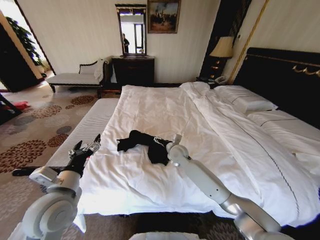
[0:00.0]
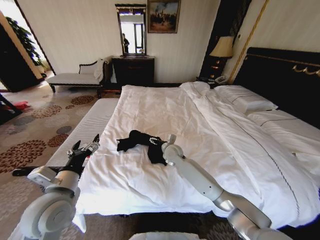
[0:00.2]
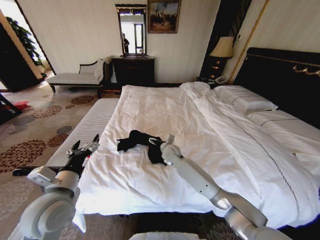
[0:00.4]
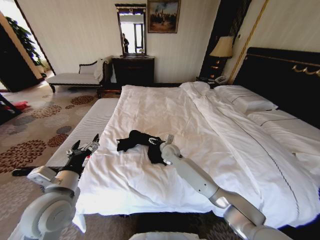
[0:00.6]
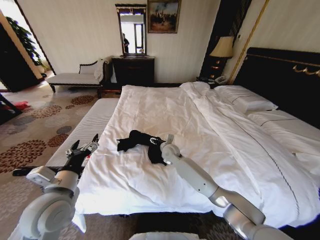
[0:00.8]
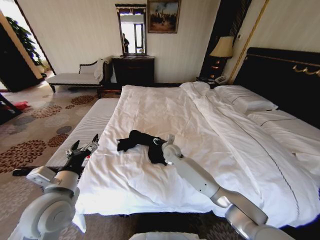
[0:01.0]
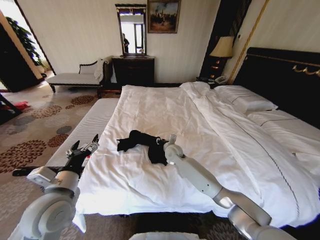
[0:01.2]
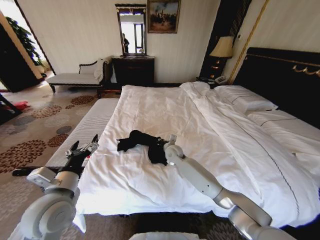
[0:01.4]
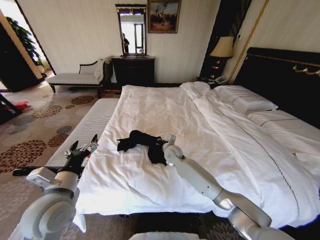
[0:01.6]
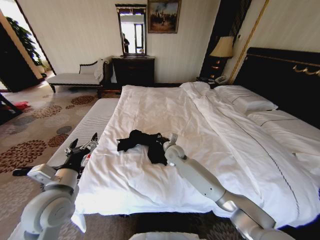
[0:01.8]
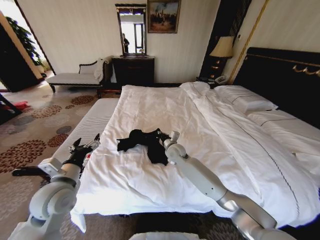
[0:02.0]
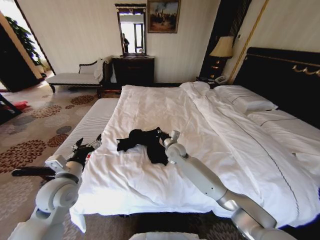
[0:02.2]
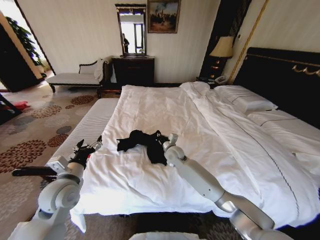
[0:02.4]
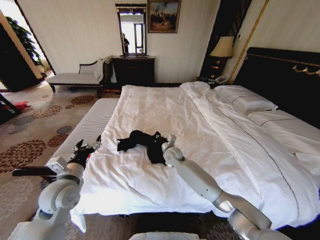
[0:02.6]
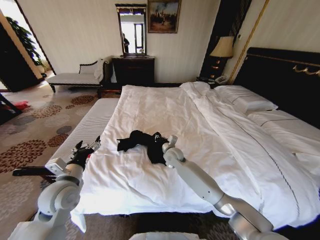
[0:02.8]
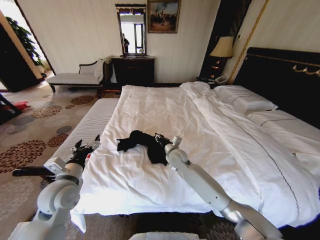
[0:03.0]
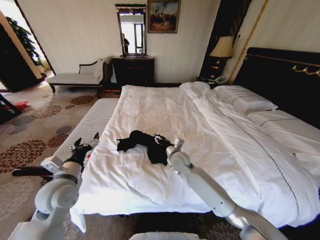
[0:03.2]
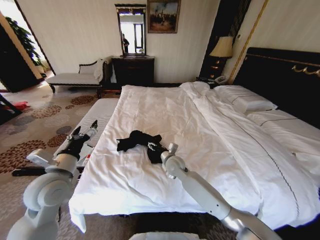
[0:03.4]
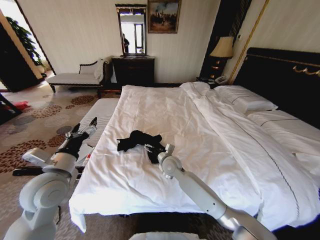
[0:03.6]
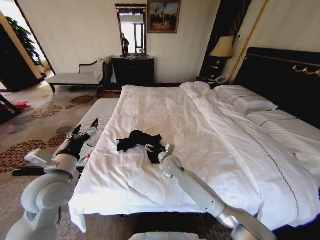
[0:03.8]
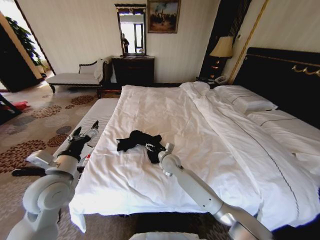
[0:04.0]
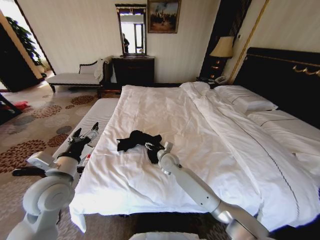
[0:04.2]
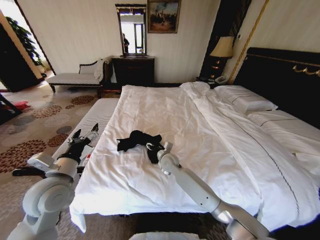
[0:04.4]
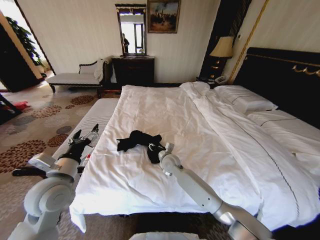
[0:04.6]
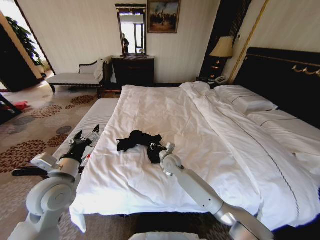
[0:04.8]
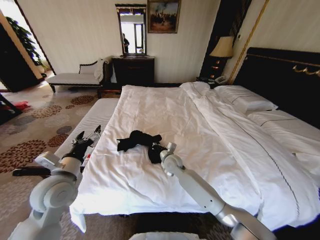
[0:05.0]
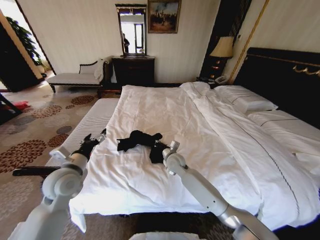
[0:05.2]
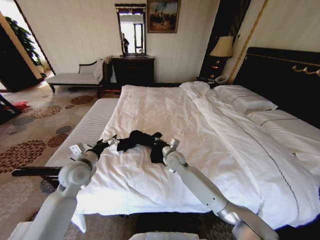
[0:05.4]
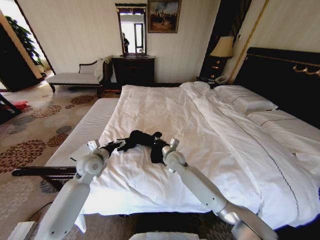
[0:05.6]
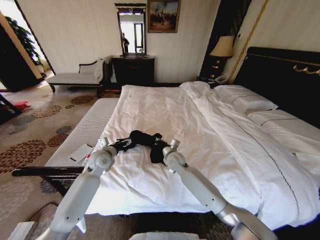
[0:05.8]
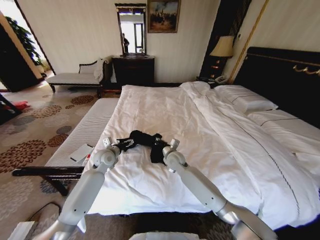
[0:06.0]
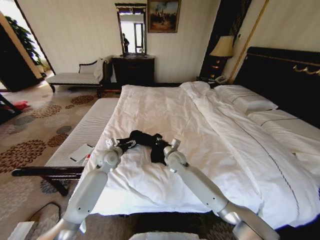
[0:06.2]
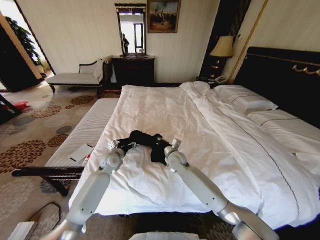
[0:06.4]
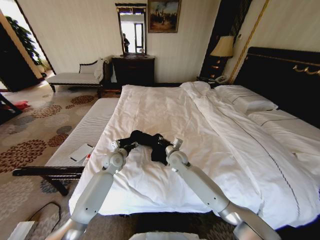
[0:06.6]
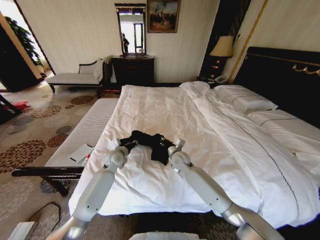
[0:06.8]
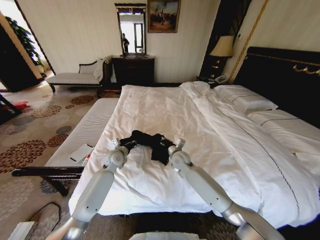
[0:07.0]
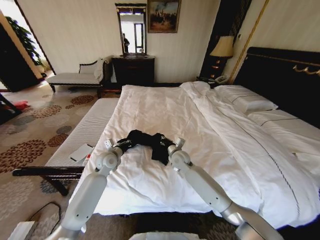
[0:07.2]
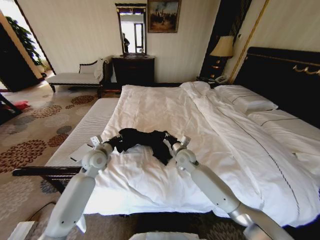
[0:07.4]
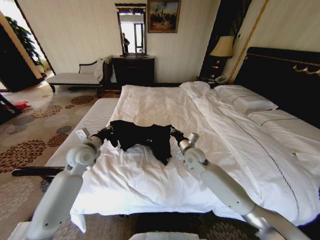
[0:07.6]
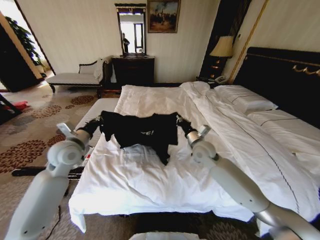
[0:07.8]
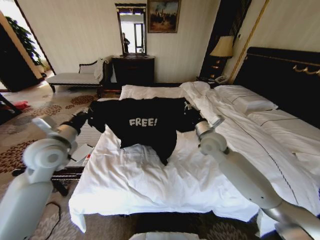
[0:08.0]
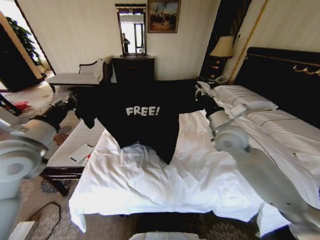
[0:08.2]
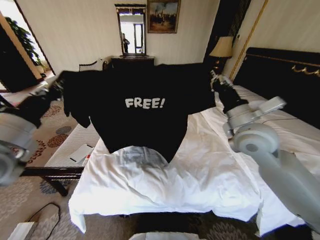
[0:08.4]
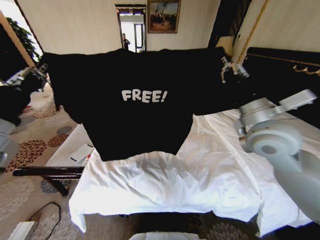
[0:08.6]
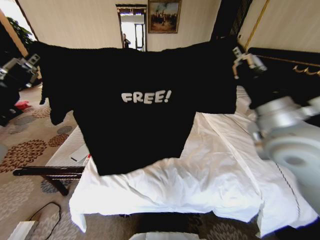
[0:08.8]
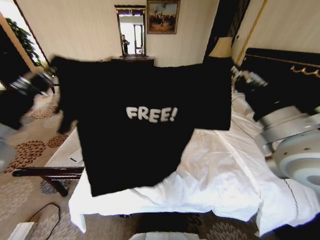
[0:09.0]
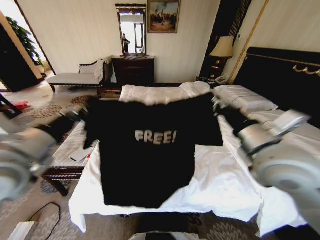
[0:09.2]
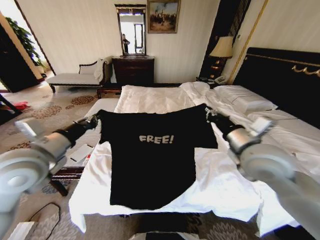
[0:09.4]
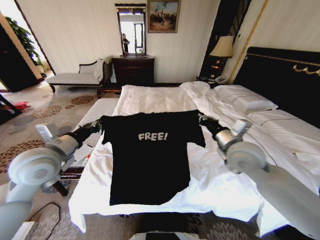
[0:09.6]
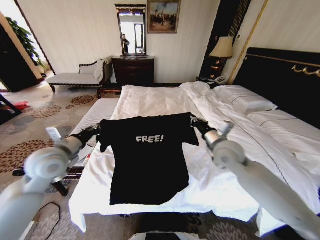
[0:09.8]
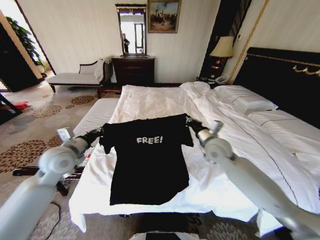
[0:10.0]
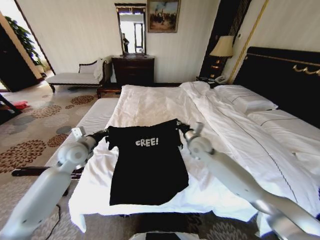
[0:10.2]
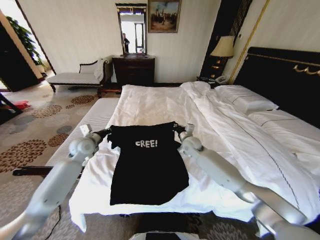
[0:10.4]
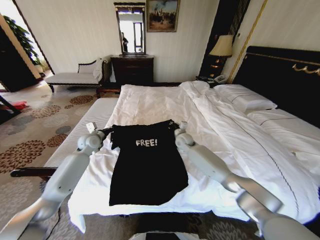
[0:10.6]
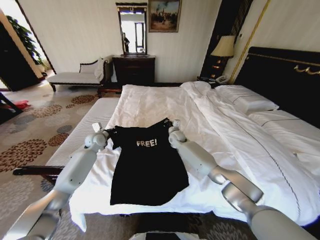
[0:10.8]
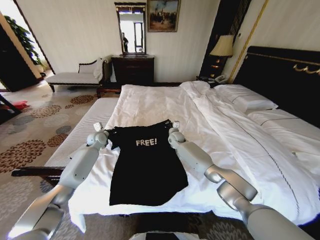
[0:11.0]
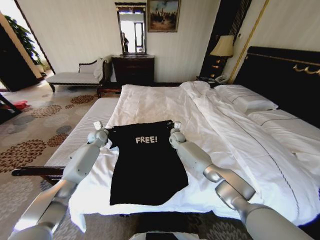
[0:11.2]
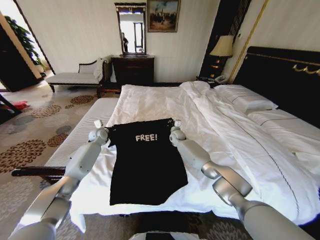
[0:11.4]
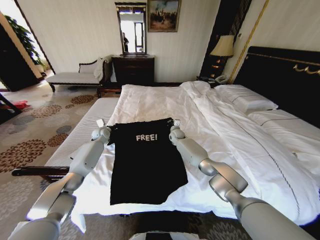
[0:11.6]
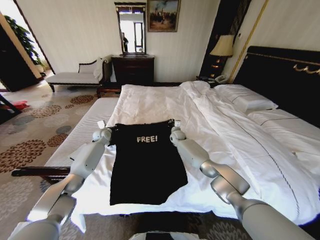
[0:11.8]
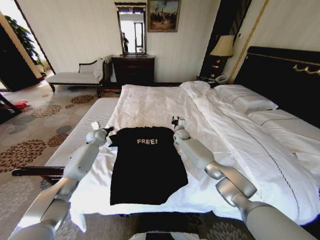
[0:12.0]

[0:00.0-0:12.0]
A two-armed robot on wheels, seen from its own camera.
Task of the whole recording: Fold the clothes on the bed.
0:00.0 to 0:01.6: The right gripper closes its fingers.
0:01.6 to 0:03.0: The left gripper heads forward, covering roughly 5 cm.
0:03.0 to 0:04.4: The right gripper opens up.
0:04.4 to 0:06.0: The right gripper closes its fingers. Meanwhile the left gripper travels forward and downward by some 25 cm.
0:06.0 to 0:07.6: The right gripper is displaced to the right by some 10 cm. Meanwhile the left gripper goes some 10 cm upward and to the left, and closes up.
0:07.6 to 0:09.0: The two grippers go roughly 30 cm upward and backward.
0:09.0 to 0:10.4: Both grippers move forward and downward, roughly 35 cm.
0:10.4 to 0:12.0: Both grippers move forward and downward, some 15 cm.

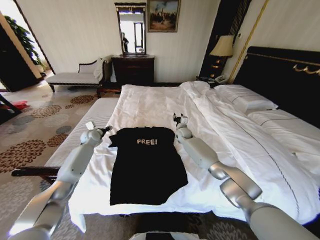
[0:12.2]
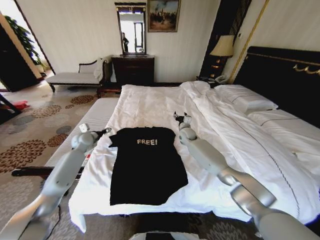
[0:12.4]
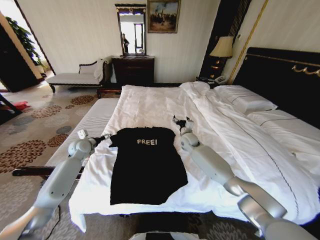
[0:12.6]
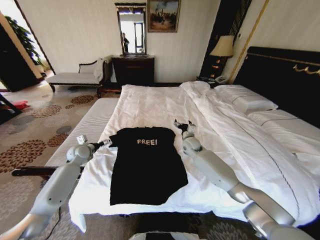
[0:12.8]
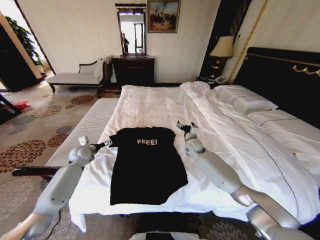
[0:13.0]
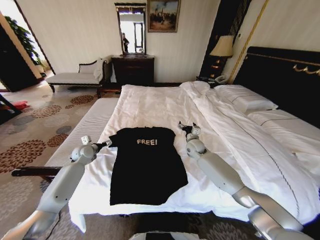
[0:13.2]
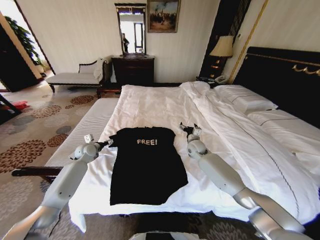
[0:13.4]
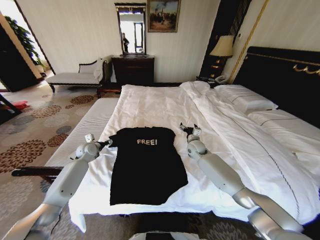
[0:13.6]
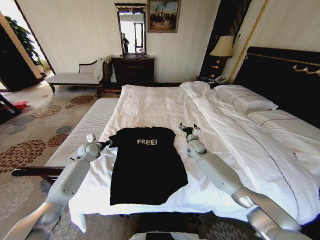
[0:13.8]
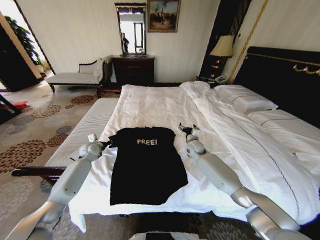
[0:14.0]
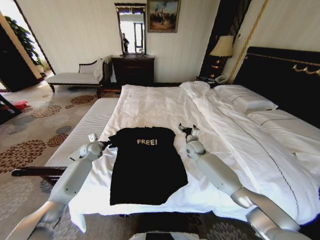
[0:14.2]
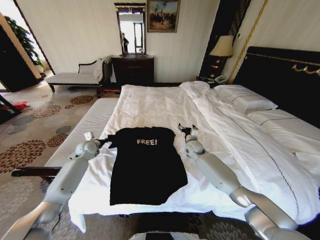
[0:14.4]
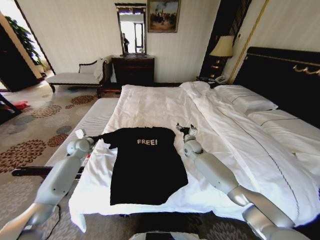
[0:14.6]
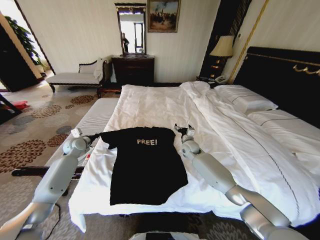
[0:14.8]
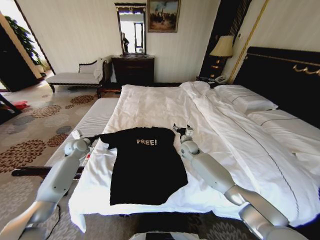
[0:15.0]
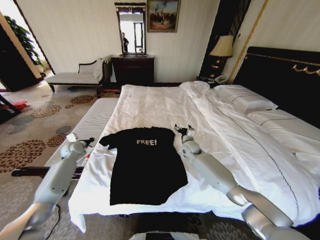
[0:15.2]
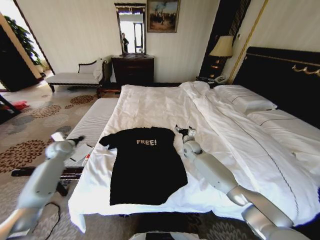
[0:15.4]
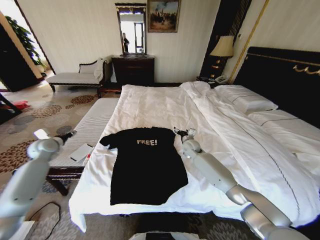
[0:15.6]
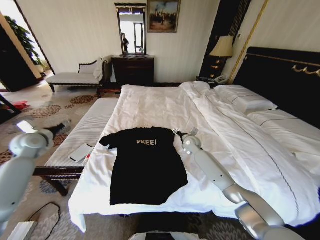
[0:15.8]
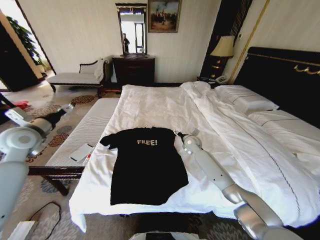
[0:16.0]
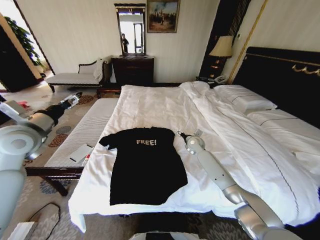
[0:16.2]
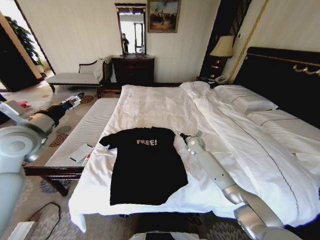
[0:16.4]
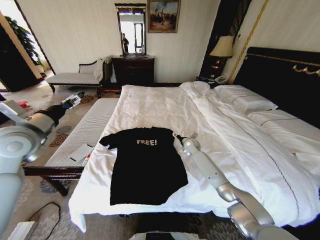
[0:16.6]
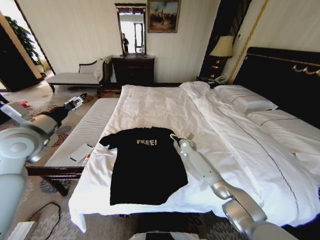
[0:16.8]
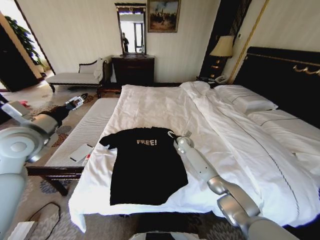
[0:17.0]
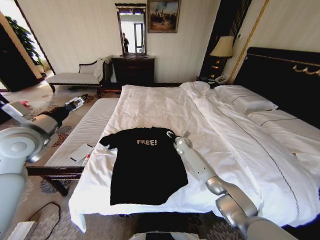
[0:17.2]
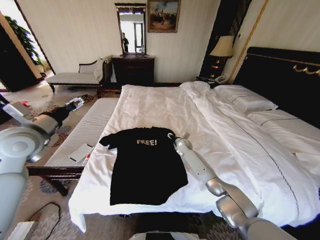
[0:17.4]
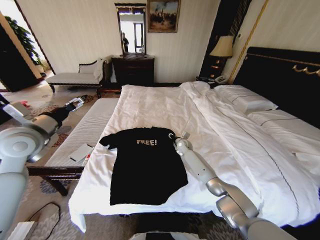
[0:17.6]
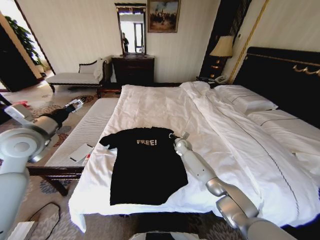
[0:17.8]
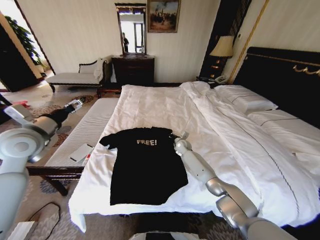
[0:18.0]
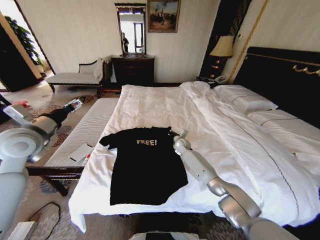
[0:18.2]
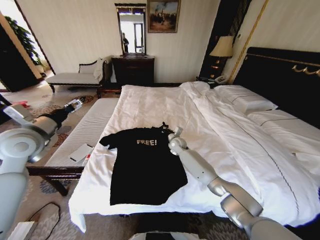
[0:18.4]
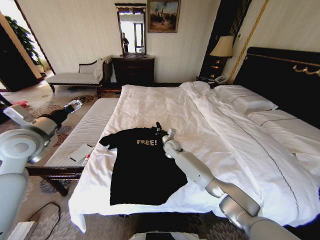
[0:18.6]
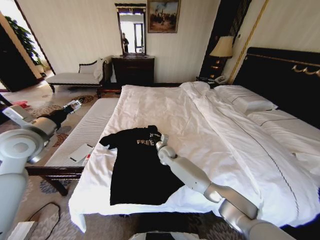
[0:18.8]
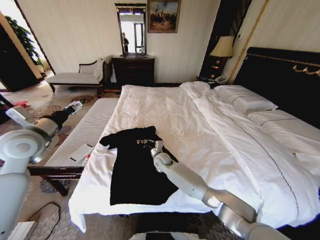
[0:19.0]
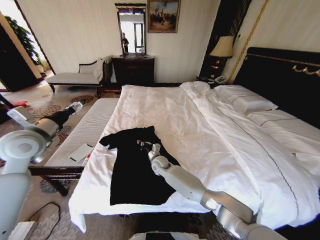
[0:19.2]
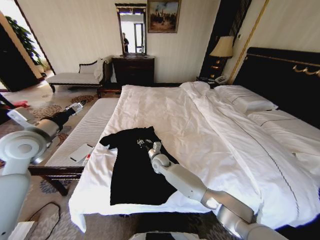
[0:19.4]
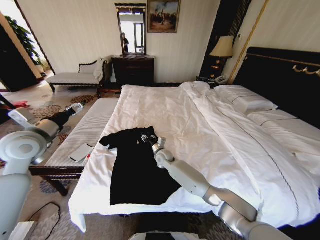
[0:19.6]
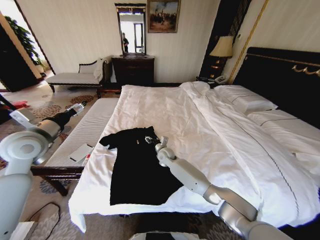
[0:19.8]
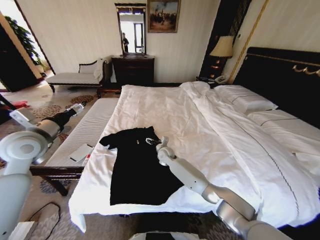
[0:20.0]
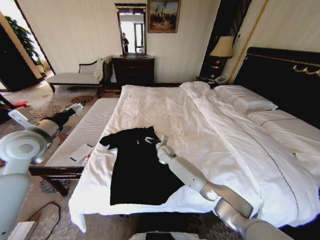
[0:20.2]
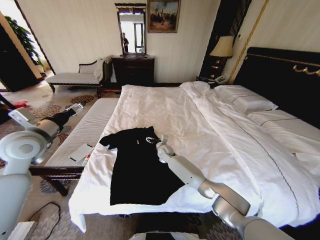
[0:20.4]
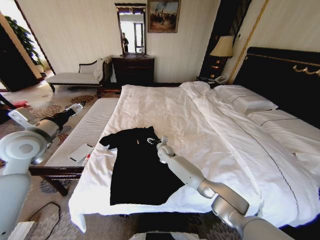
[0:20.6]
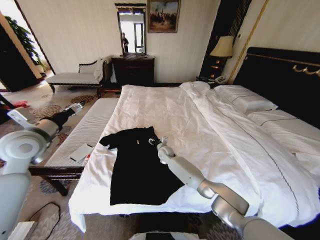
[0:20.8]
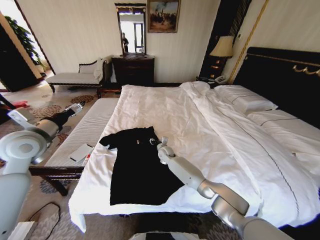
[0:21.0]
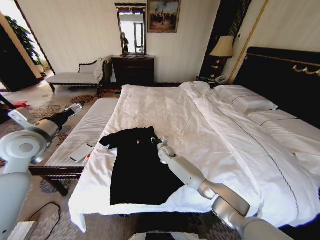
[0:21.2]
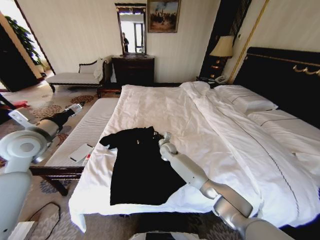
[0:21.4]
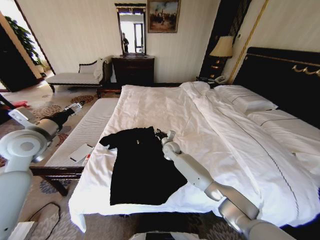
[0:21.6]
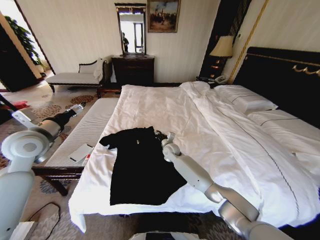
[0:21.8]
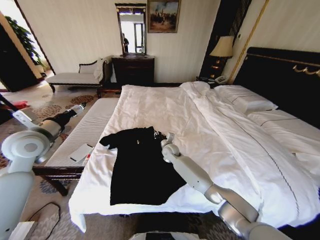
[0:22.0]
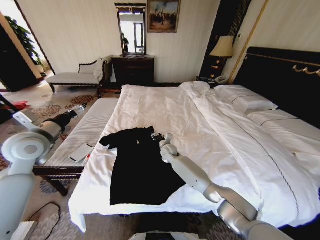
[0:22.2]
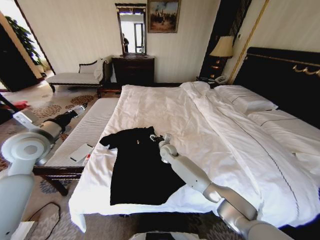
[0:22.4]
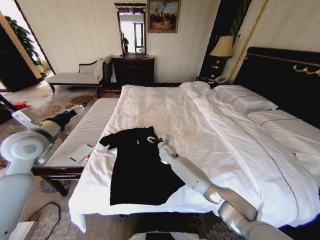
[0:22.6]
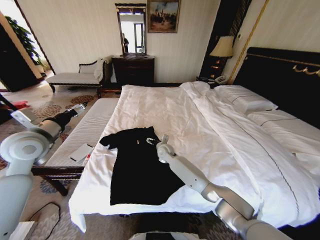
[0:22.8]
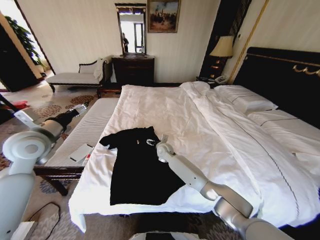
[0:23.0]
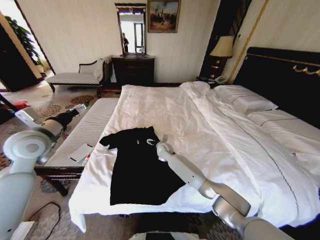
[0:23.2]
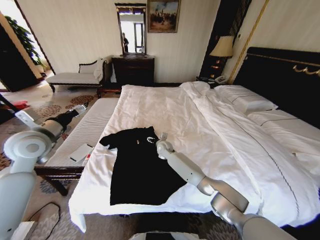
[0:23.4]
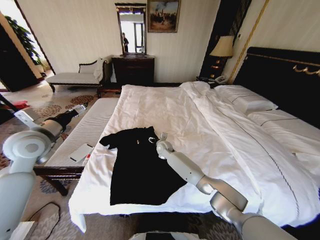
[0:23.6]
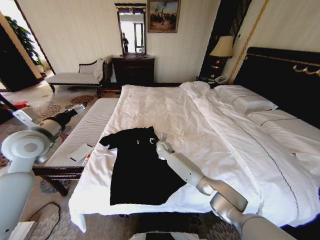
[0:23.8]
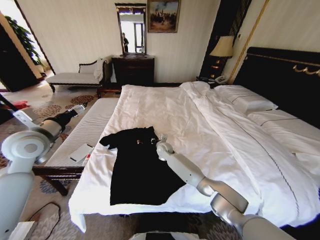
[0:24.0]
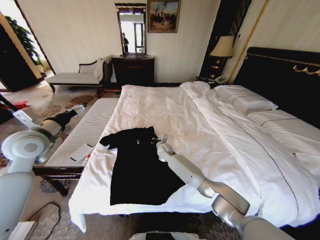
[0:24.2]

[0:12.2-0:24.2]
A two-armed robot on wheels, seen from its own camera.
Task of the whole recording: Fold the clothes on the bed.
0:12.2 to 0:13.8: The right gripper goes approximately 10 cm backward, and opens up; the left gripper heads backward, covering approximately 5 cm, and opens, then closes once more.
0:13.8 to 0:15.2: The left gripper travels to the left by about 10 cm.
0:15.2 to 0:16.6: The left gripper is displaced upward and backward by about 30 cm, and opens up.
0:16.6 to 0:18.2: The right gripper heads to the left, covering approximately 5 cm, and closes.
0:18.2 to 0:19.8: The right gripper shifts some 15 cm to the left and backward, and opens.
0:19.8 to 0:21.2: The grippers move only a little.
0:21.2 to 0:22.6: The right gripper opens up.
0:22.6 to 0:24.2: The right gripper closes up.
